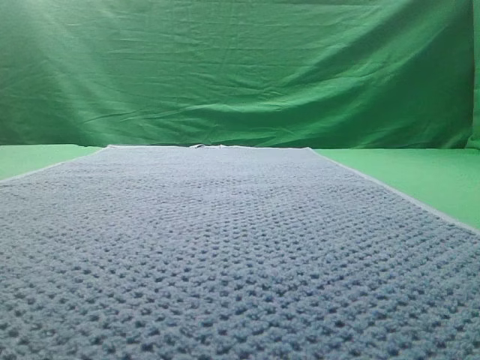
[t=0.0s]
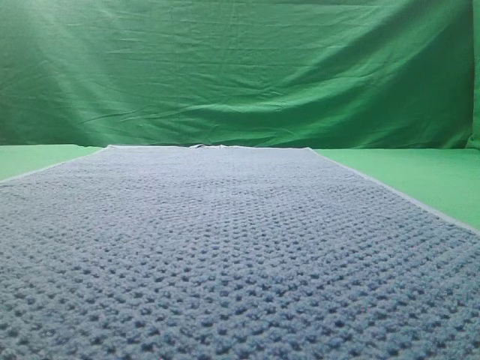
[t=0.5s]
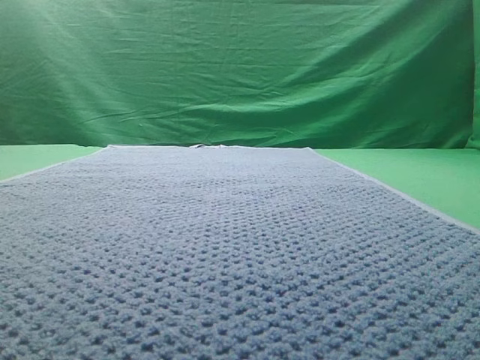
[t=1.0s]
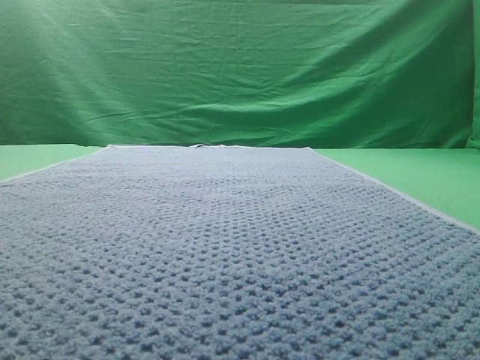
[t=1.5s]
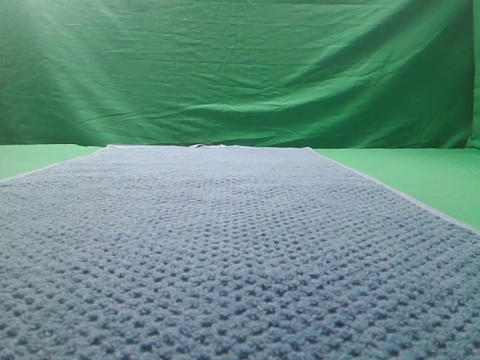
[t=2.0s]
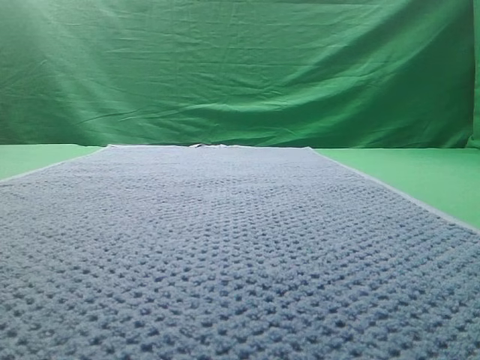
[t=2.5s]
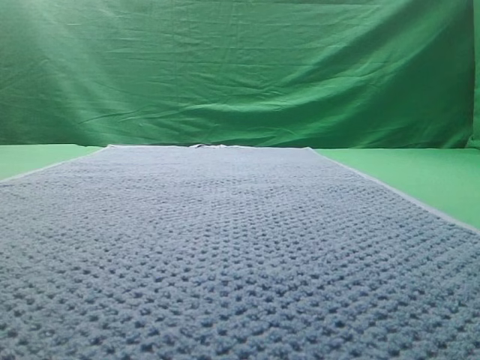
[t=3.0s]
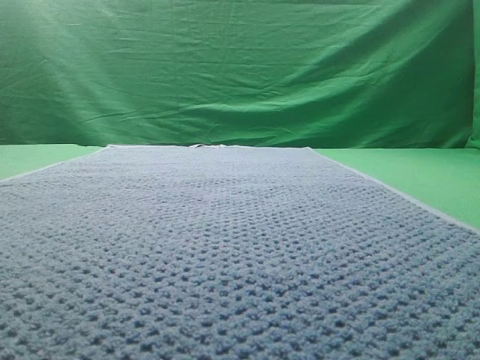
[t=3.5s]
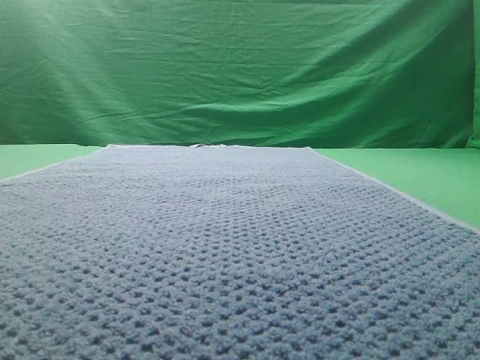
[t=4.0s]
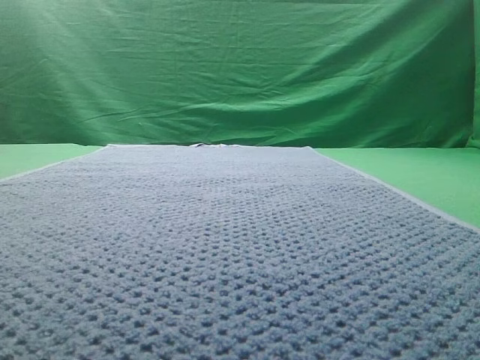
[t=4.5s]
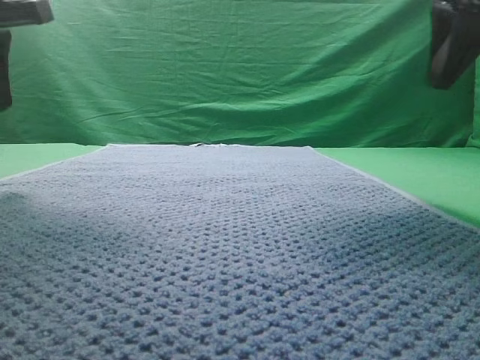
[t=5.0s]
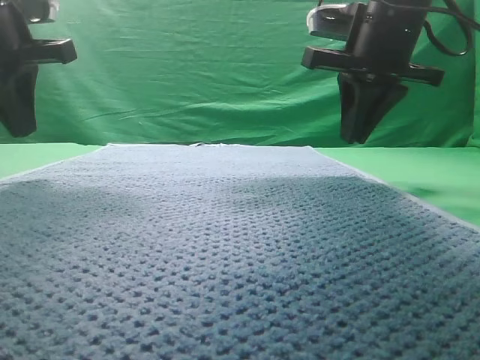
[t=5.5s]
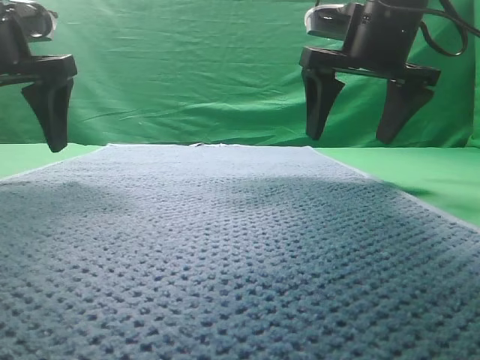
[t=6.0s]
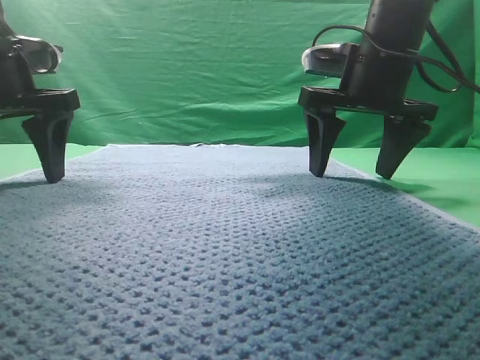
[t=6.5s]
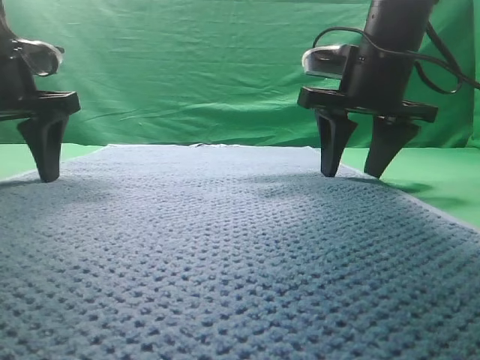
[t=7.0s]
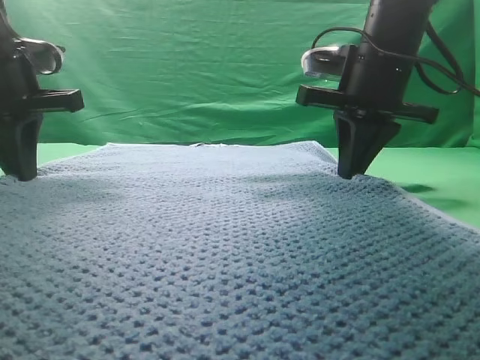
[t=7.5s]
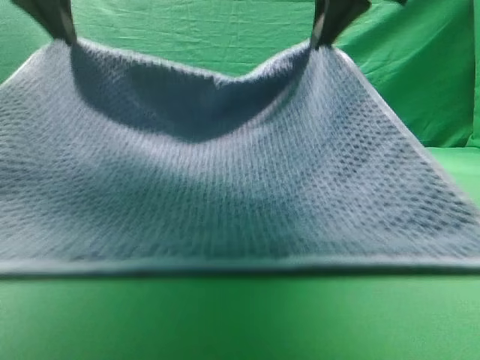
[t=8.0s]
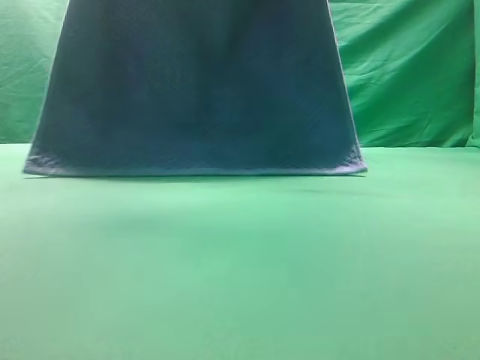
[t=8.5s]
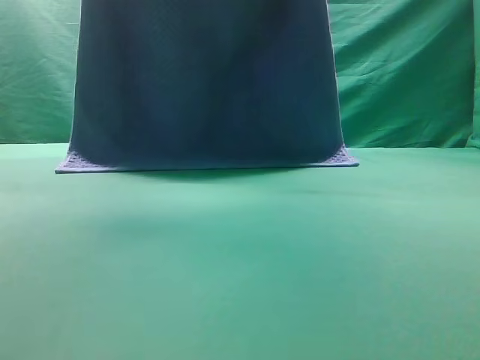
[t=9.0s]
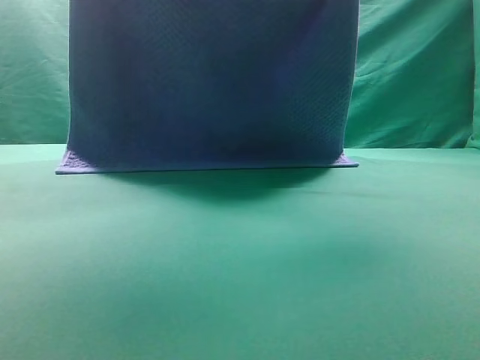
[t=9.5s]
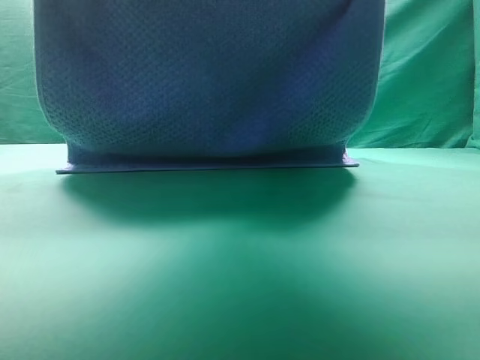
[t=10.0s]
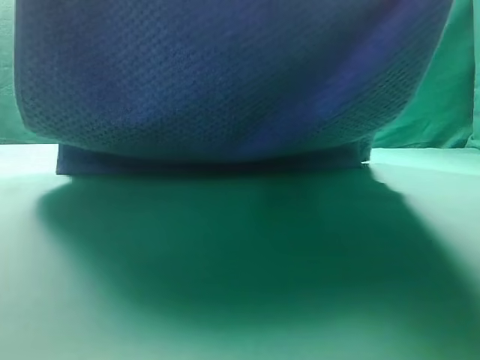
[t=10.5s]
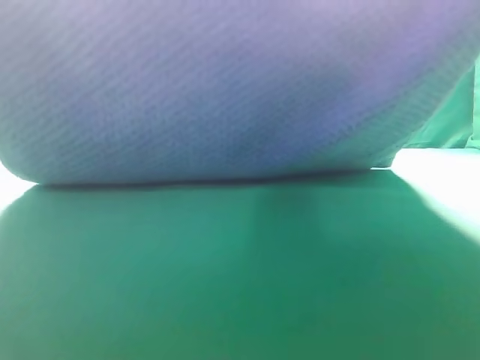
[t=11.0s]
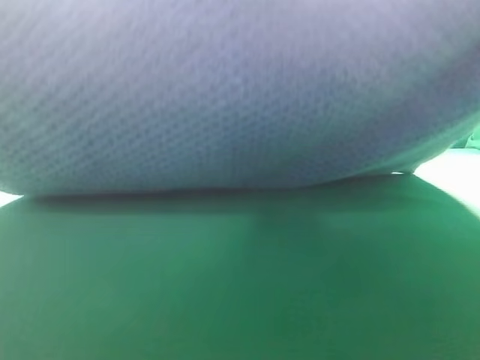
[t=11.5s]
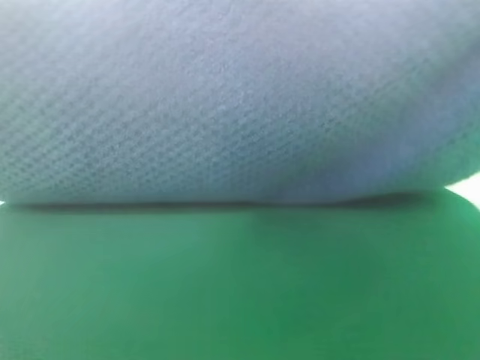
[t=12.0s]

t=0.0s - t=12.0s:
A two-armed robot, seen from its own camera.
Task of the whole recording: fold the towel on the table twice.
Step, t=0.0s - t=8.5s: pick up the towel with two arm.

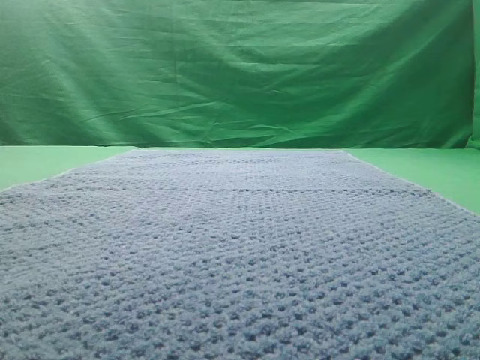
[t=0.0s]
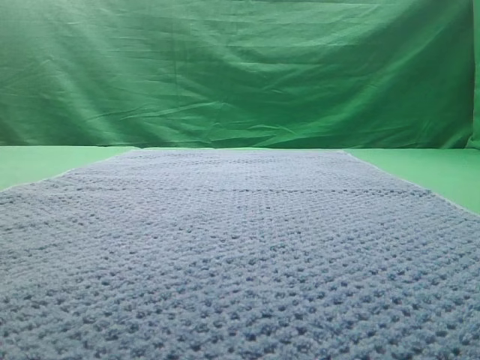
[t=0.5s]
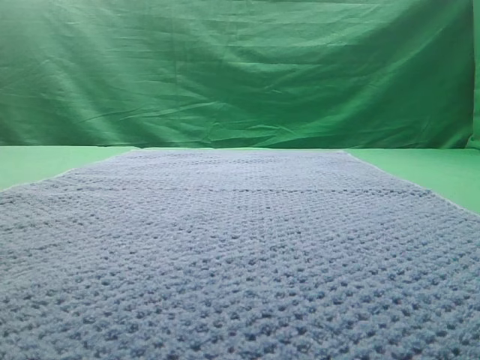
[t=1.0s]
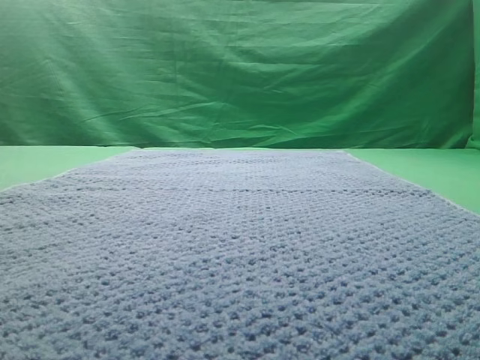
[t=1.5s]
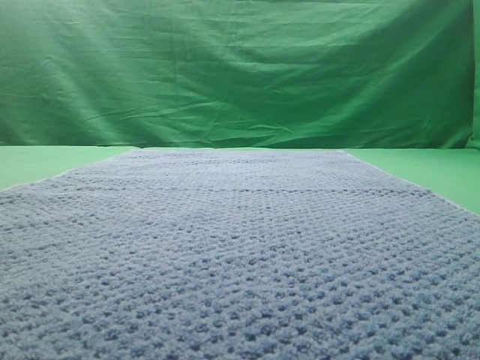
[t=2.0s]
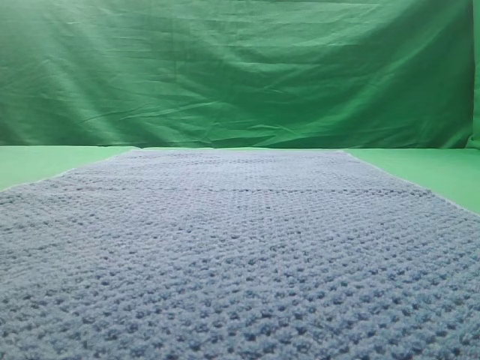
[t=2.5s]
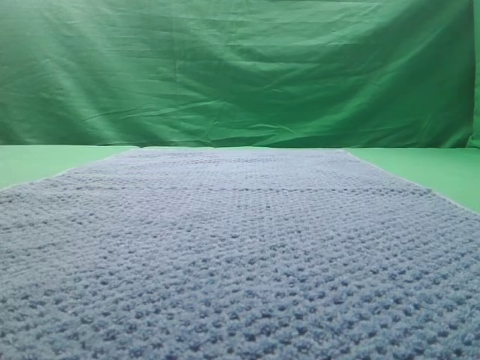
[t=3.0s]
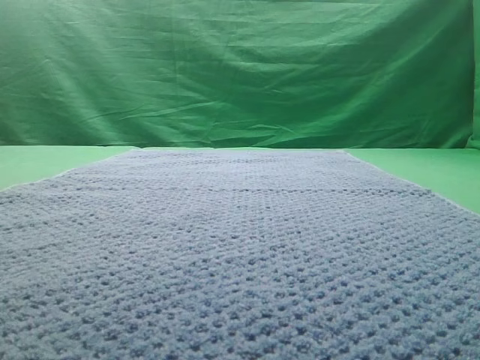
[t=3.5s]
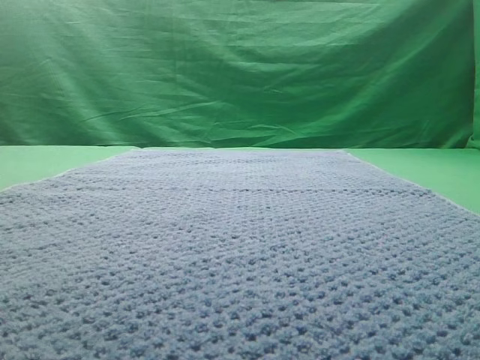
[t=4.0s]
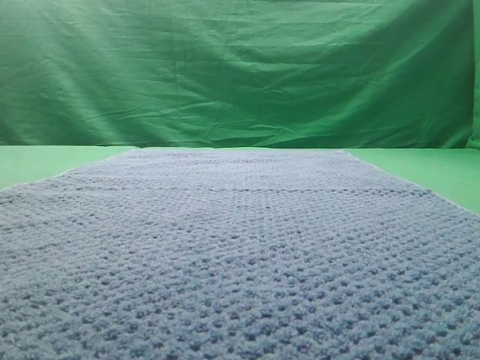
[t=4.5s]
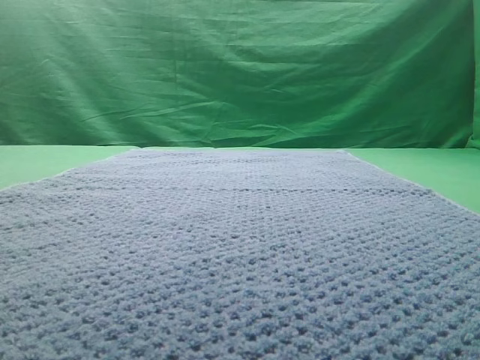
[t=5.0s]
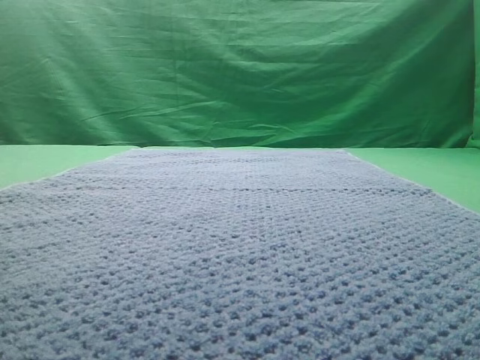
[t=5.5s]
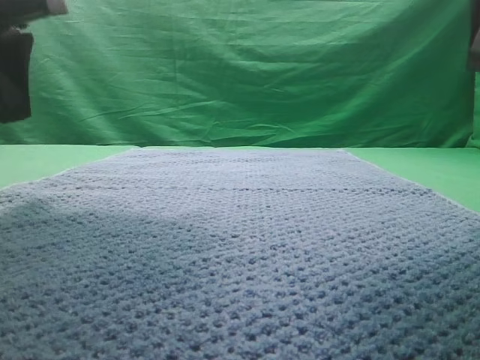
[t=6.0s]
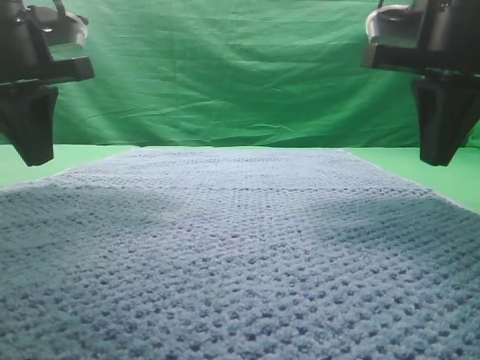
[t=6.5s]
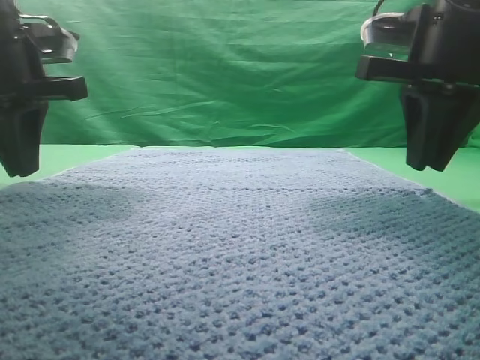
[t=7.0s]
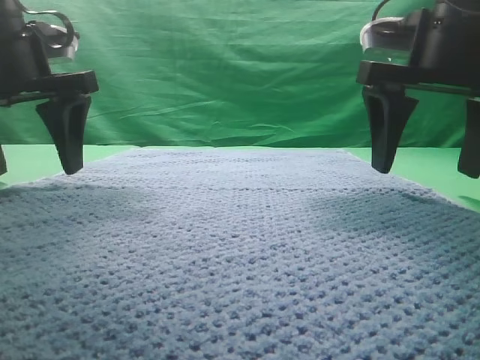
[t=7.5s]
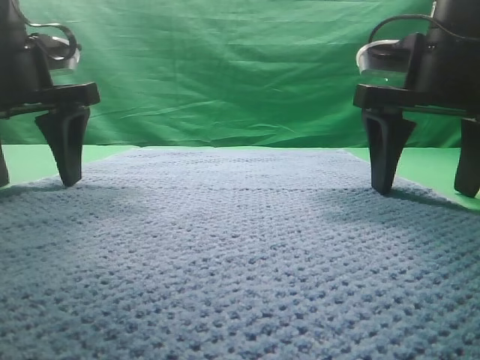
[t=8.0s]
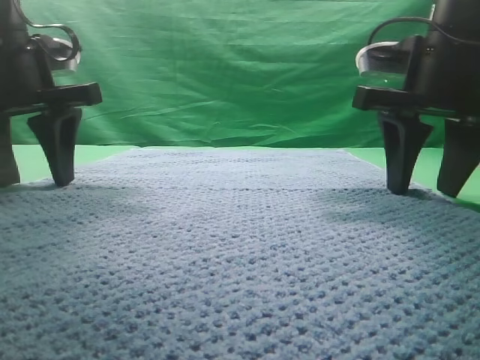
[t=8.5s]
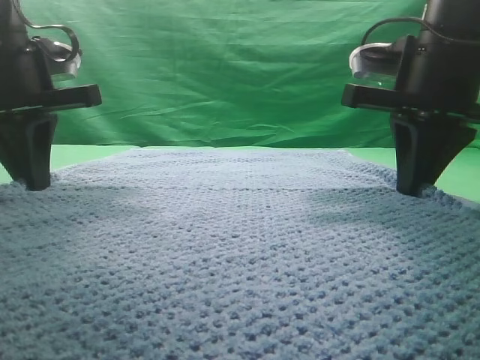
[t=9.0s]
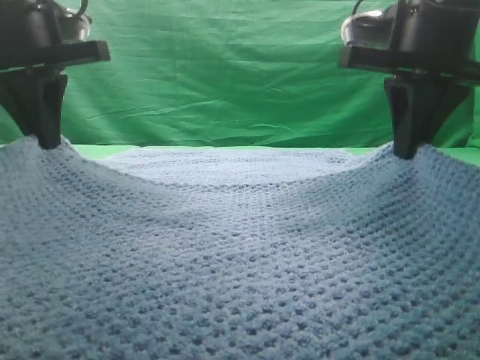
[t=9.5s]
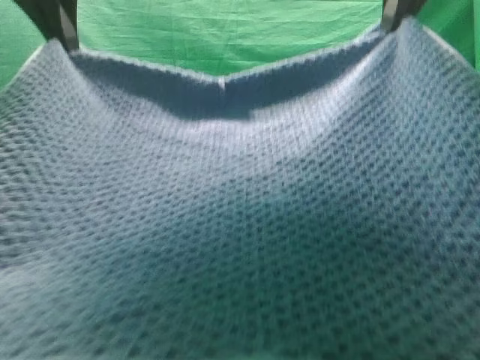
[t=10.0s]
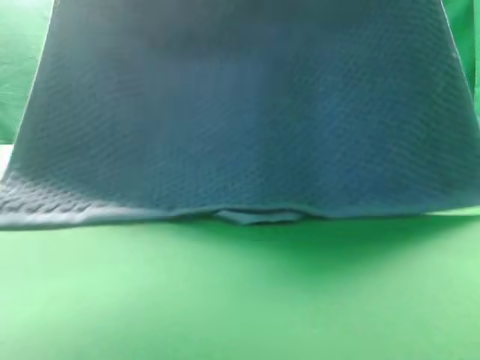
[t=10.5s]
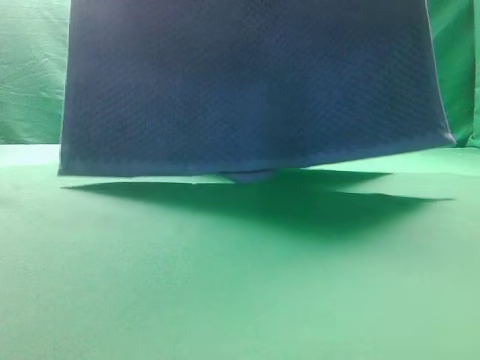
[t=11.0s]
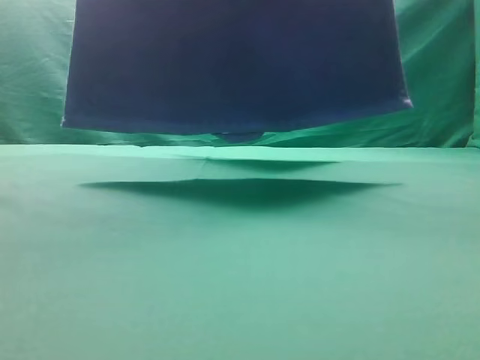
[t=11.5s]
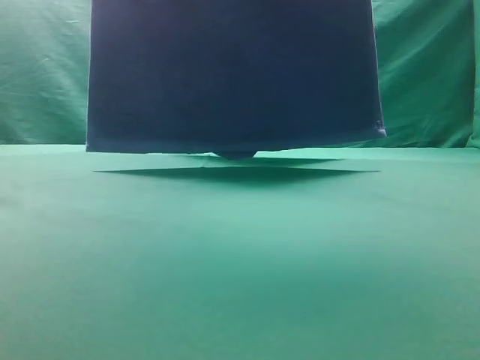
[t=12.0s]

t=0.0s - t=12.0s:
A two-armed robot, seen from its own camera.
Task of the whole recording: fold the towel on the table twice.
Step, t=0.0s - t=11.5s: pick up the towel with two arm.
